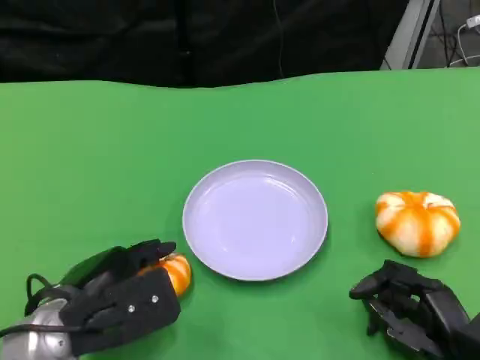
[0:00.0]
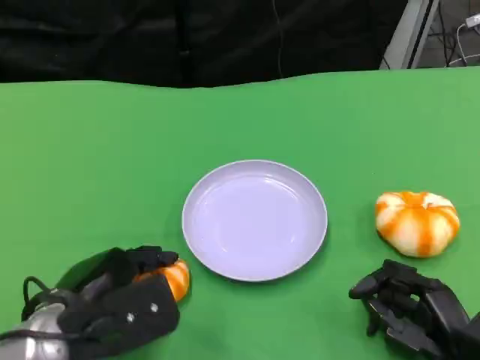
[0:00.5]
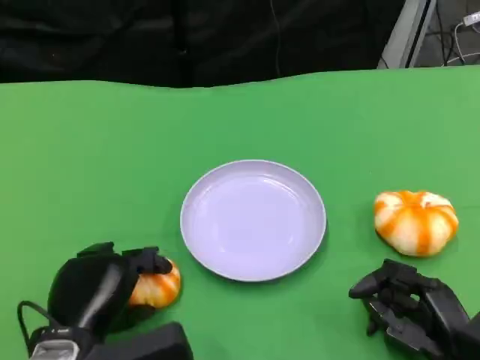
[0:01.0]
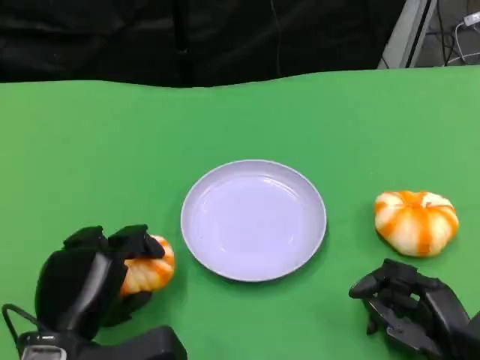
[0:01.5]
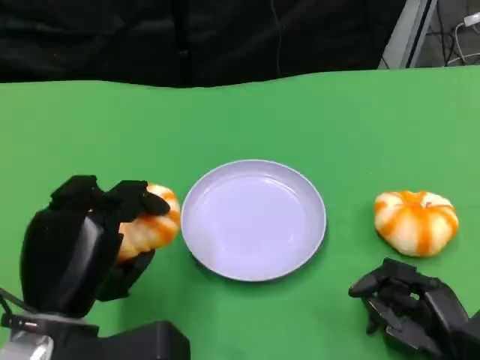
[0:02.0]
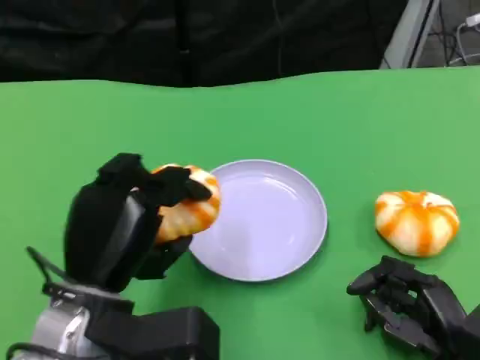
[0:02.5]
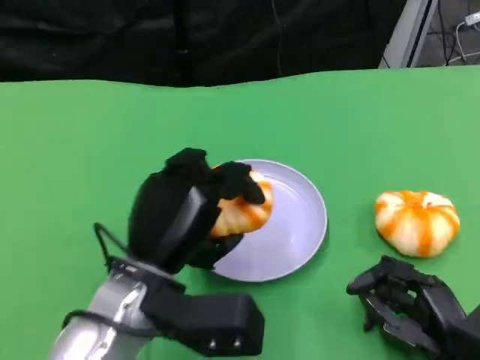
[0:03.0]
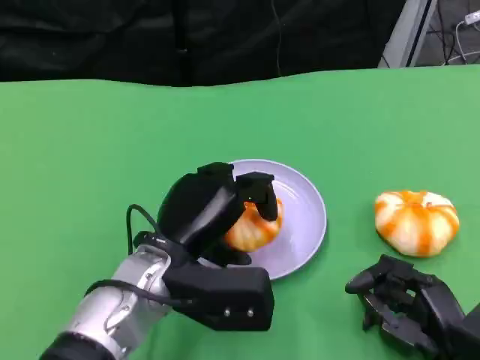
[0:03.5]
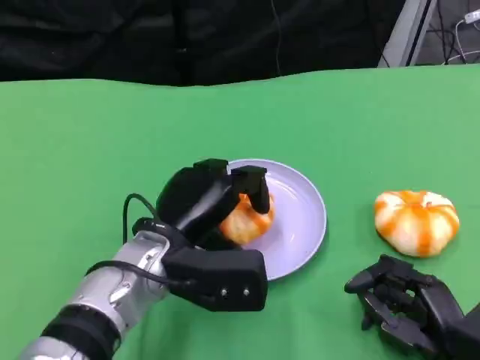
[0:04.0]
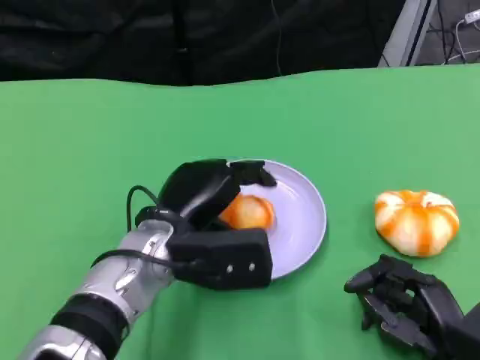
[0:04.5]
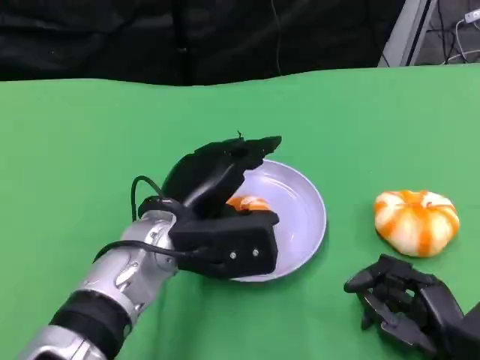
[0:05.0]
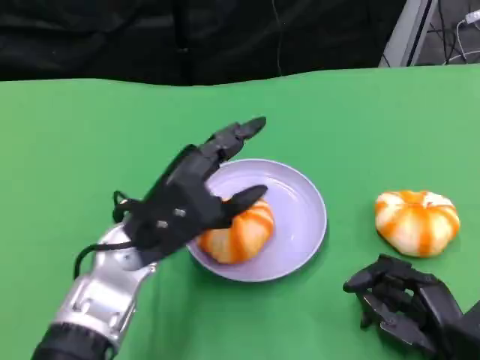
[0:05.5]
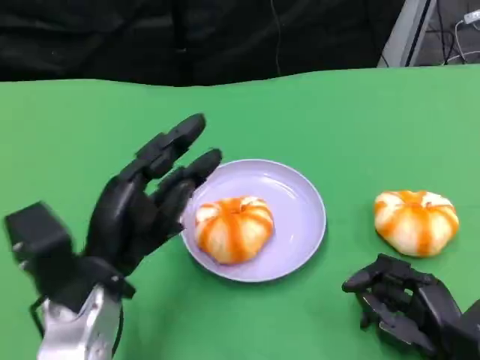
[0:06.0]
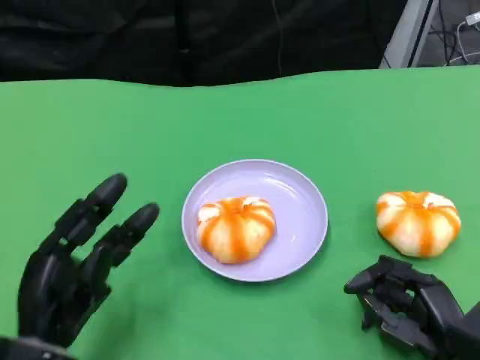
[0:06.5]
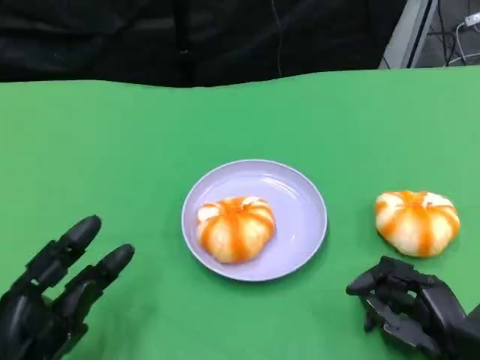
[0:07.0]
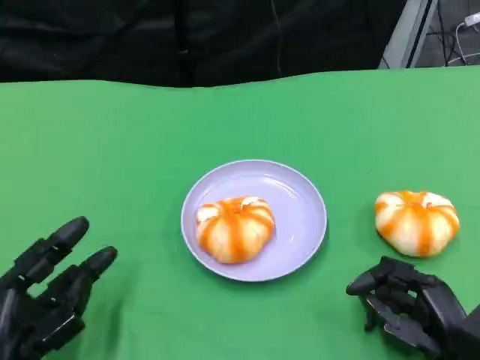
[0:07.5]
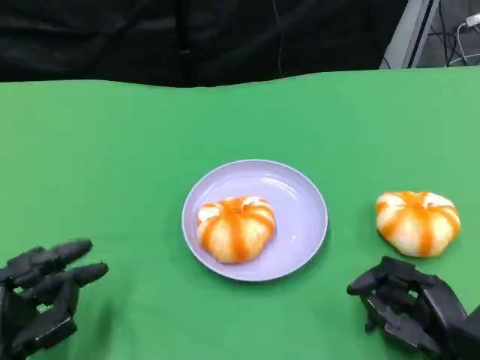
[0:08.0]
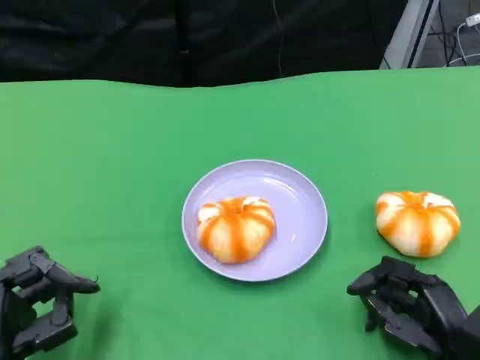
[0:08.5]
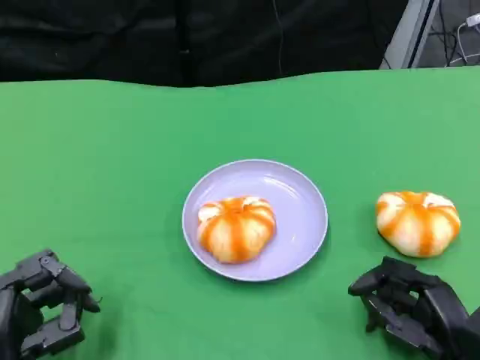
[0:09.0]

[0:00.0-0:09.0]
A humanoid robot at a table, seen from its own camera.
Task of the whole recording: Grasp the bread from the table and place it into the plate.
0:02.0 to 0:04.5: The left hand is displaced forward and to the right by some 15 cm.
0:04.5 to 0:07.0: The left hand is displaced to the left, backward and downward by about 20 cm.

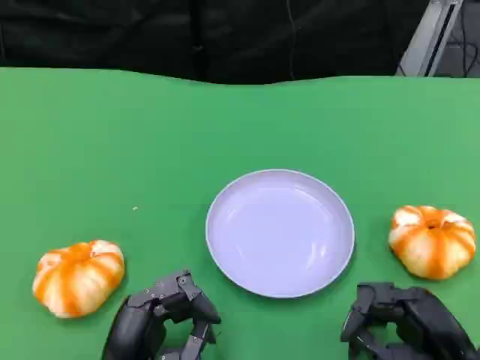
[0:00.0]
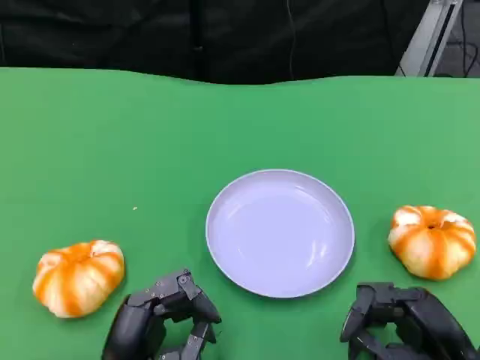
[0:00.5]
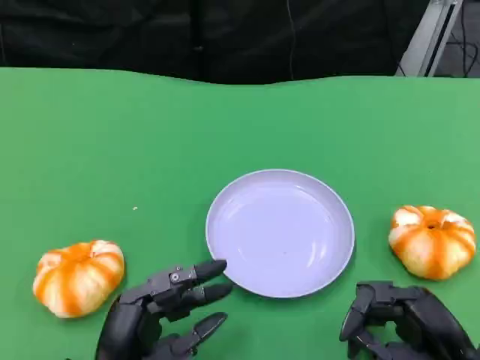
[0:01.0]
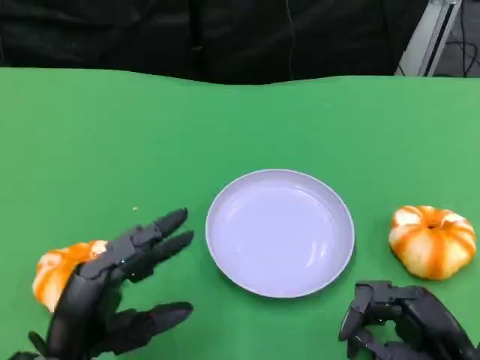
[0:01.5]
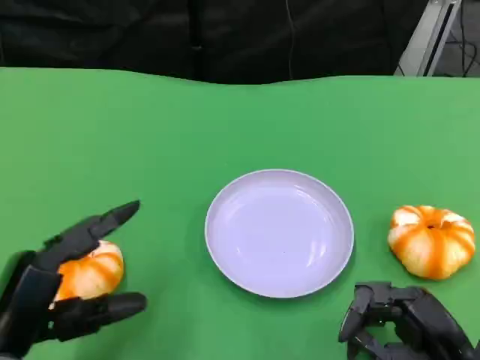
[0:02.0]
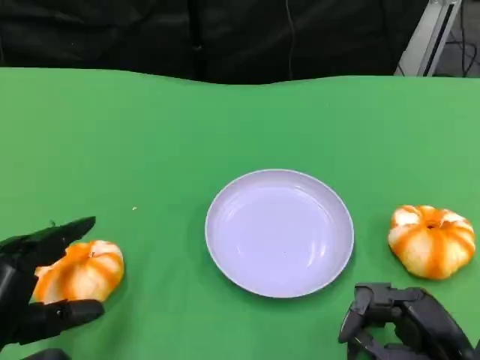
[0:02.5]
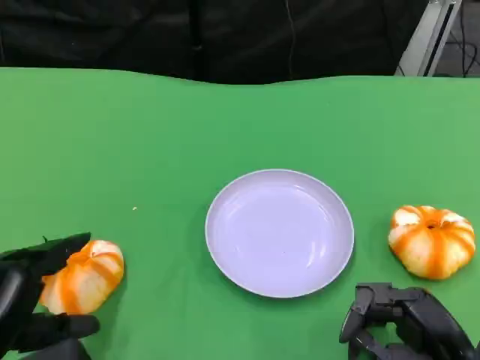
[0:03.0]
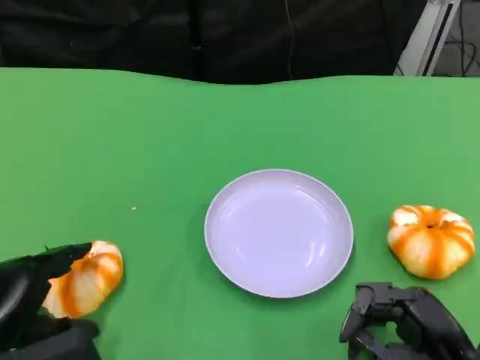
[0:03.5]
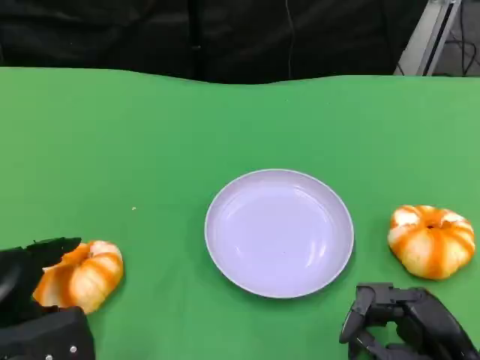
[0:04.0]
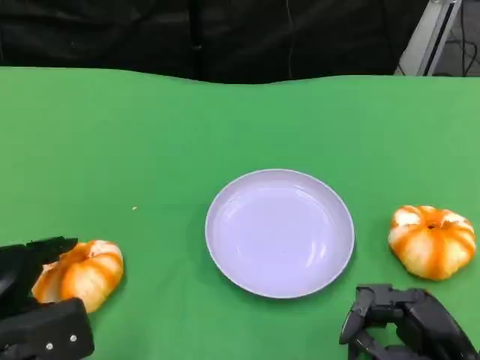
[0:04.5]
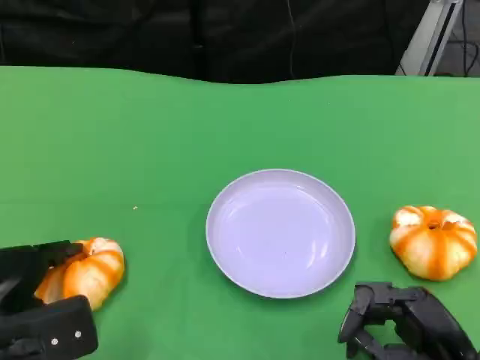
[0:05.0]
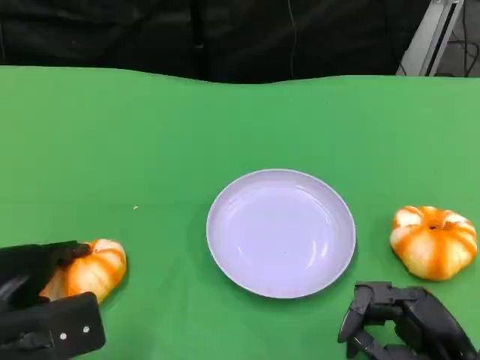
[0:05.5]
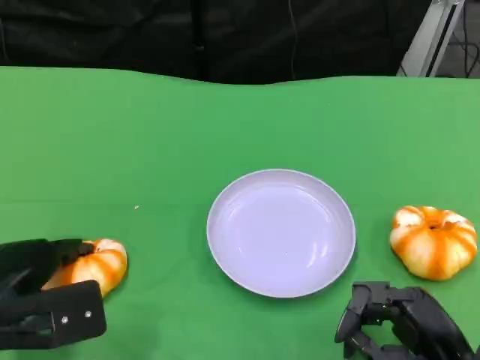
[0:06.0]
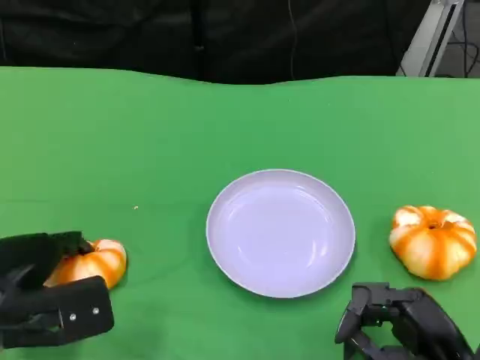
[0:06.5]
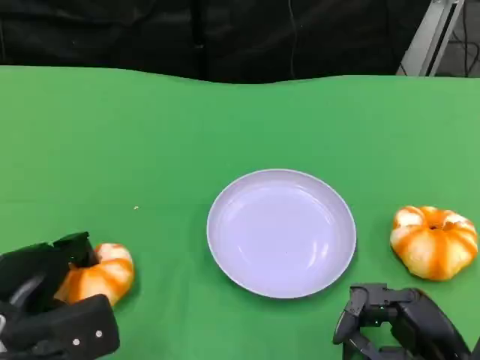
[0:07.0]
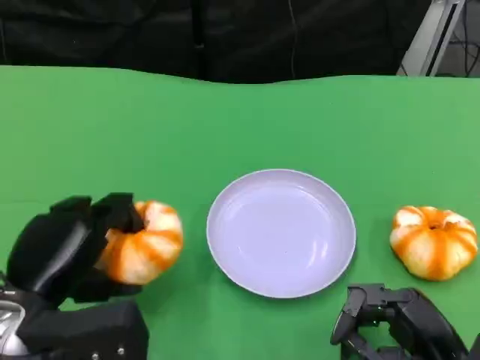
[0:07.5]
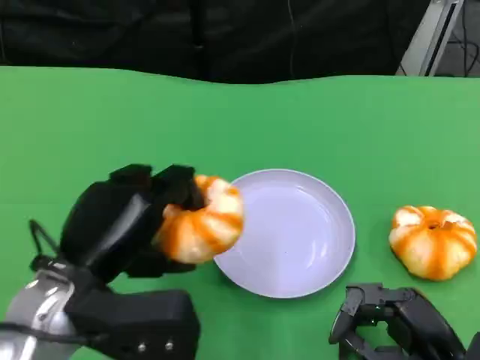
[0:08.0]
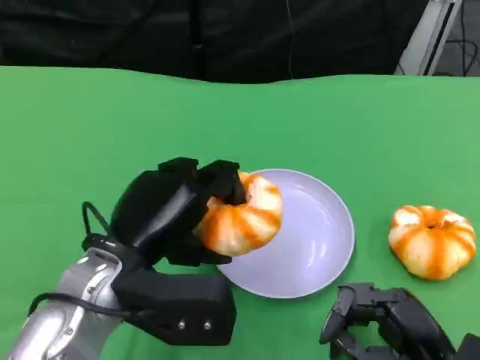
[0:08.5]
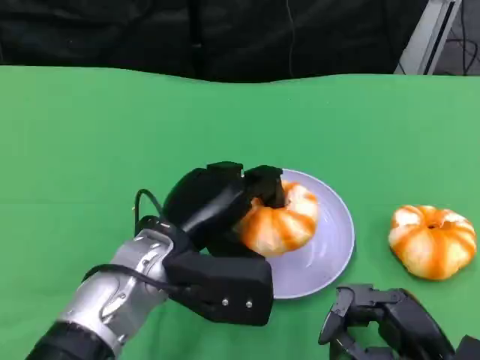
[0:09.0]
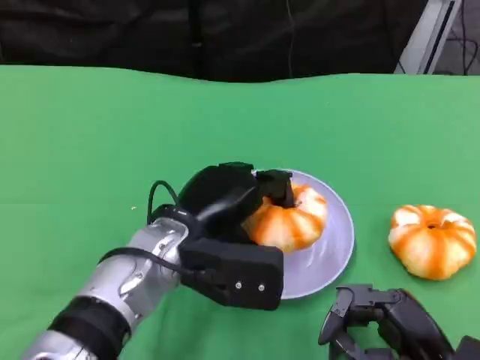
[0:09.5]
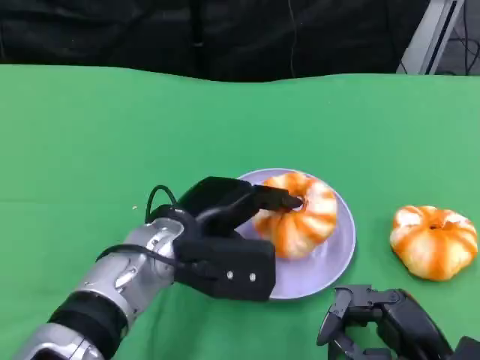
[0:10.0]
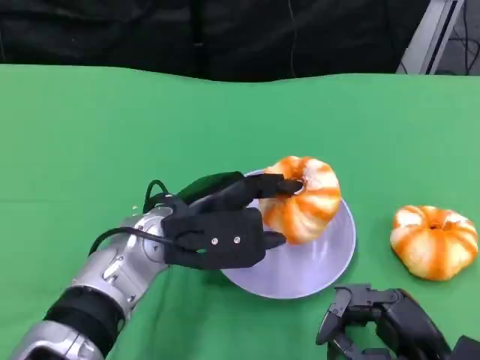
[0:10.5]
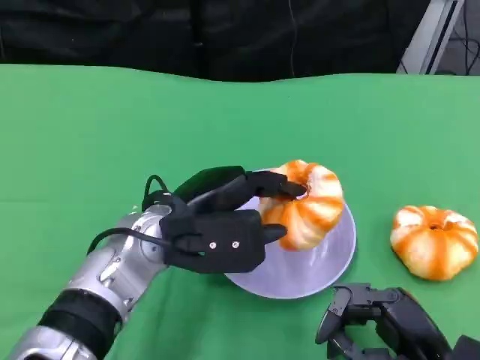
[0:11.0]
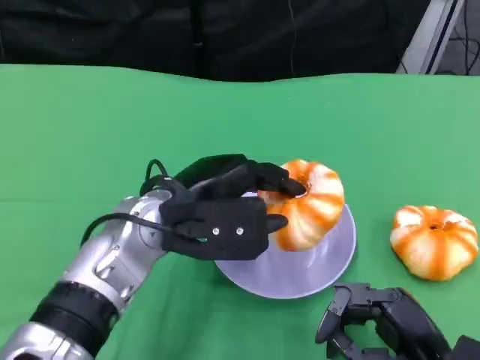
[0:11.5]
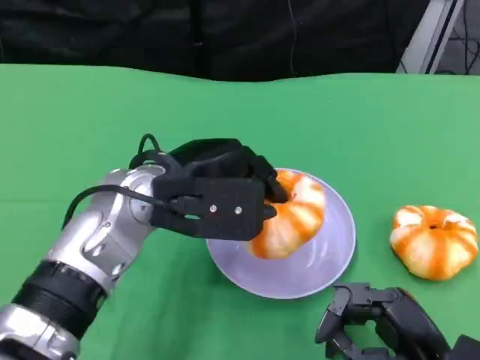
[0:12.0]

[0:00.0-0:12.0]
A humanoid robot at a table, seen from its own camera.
Task of the whole recording: Grasp the bread from the table and place it into the plate.
0:00.0 to 0:02.0: The left hand heads to the left and upward, covering about 10 cm.
0:04.0 to 0:06.0: The hands make only small movements.
0:06.0 to 0:08.0: The left hand travels to the right and upward by about 10 cm.
0:08.0 to 0:10.0: The left hand shifts roughly 10 cm to the right and forward.
0:10.0 to 0:12.0: The left hand moves upward, about 5 cm.

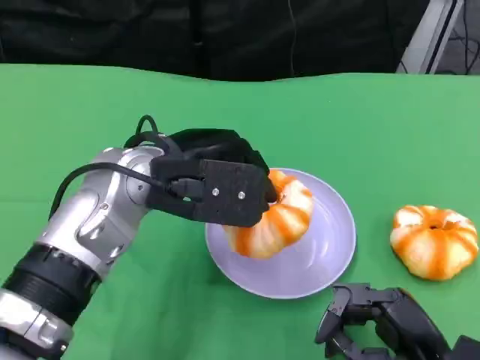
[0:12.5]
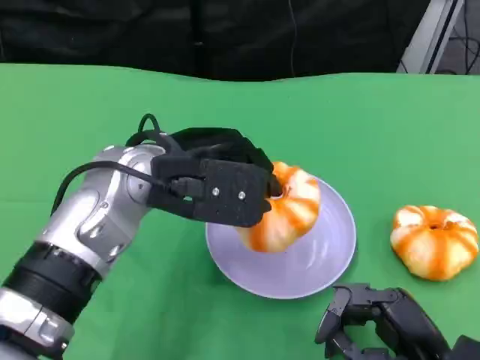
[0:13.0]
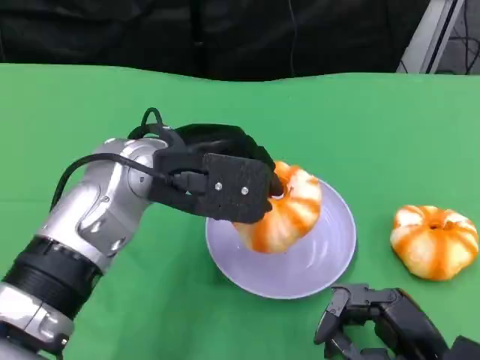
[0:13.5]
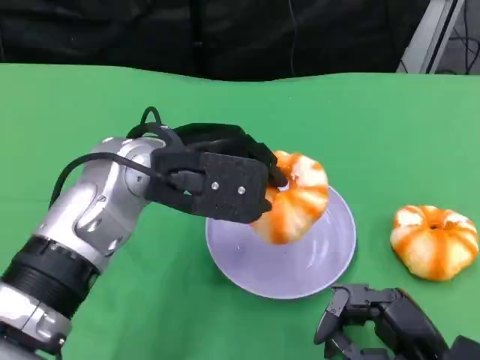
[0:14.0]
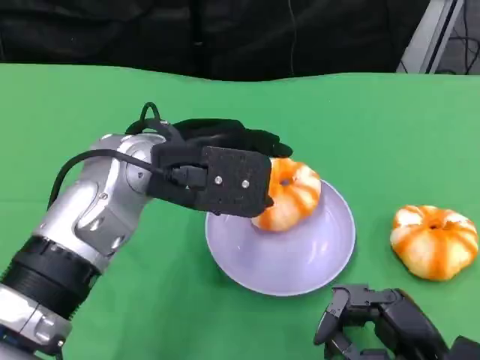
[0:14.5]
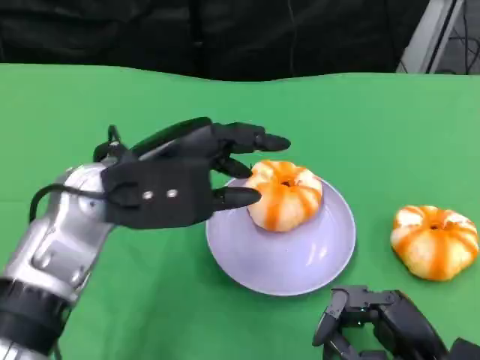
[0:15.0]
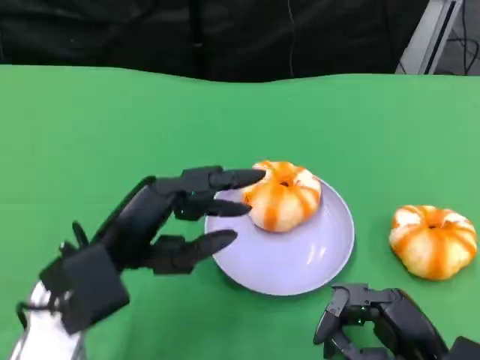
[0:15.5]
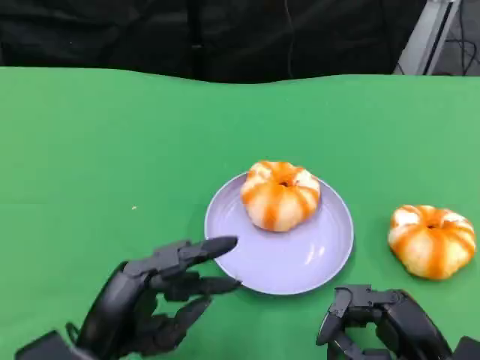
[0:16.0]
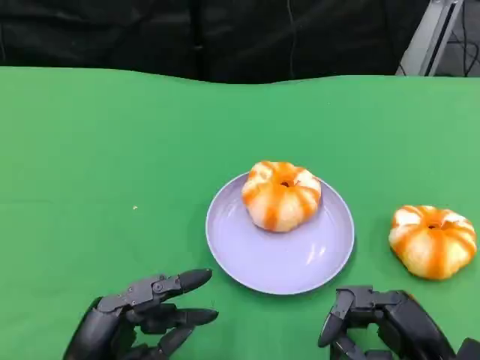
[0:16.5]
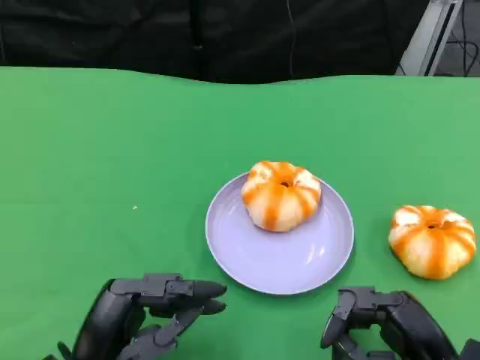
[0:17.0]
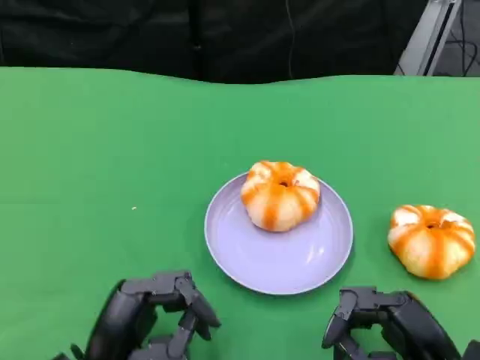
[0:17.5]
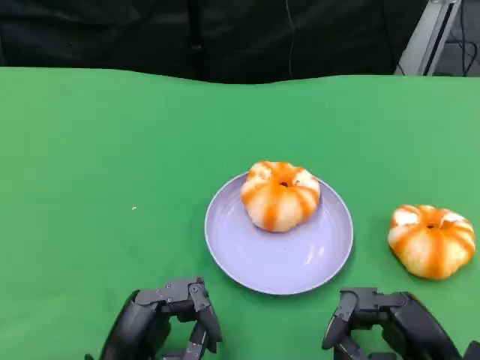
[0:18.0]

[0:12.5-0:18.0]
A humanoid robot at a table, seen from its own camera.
Task of the whole recording: Grasp the bread from the table and place it into the plate.
0:12.5 to 0:14.5: The hands move only a little.
0:14.5 to 0:16.0: The left hand moves downward, backward and to the left, about 20 cm.
0:16.0 to 0:18.0: The hands make only small movements.
